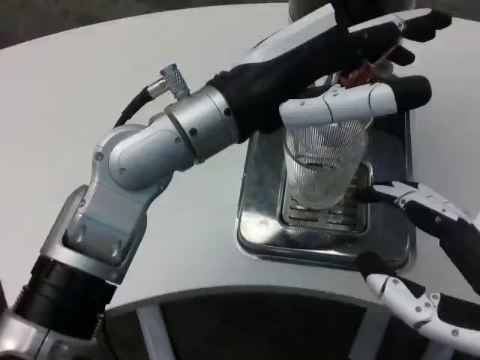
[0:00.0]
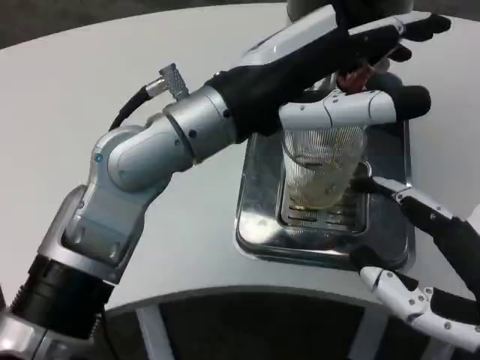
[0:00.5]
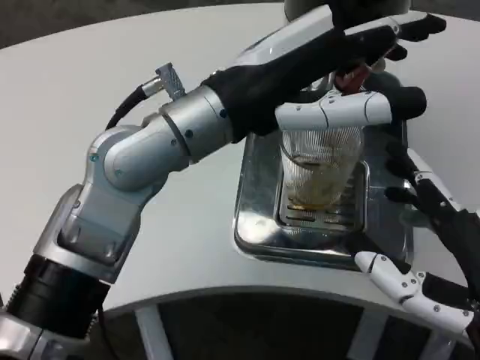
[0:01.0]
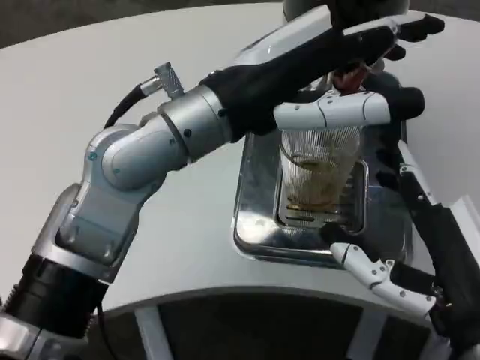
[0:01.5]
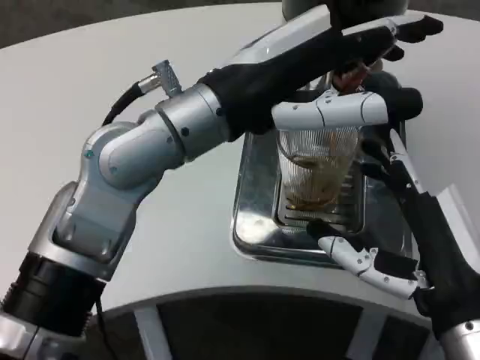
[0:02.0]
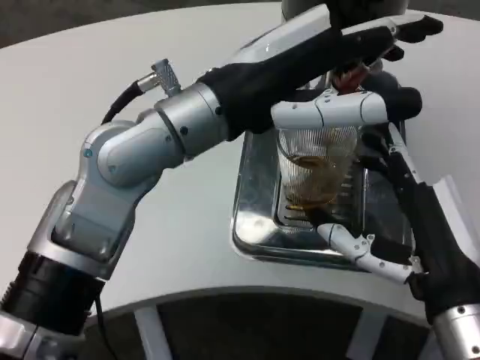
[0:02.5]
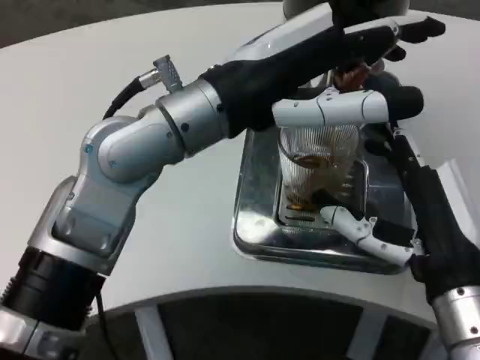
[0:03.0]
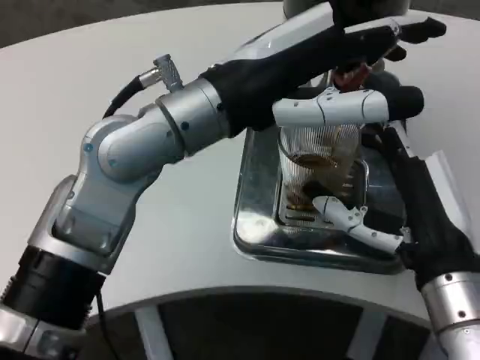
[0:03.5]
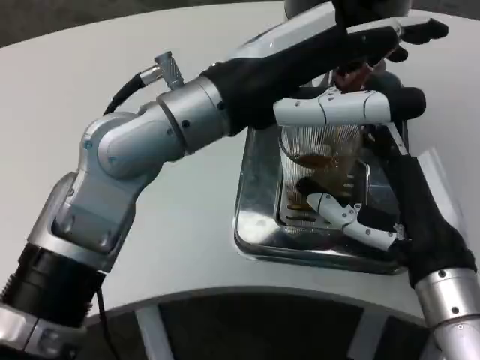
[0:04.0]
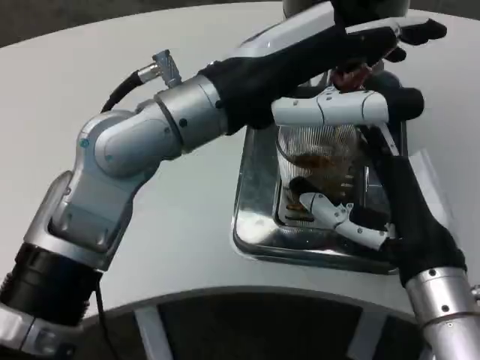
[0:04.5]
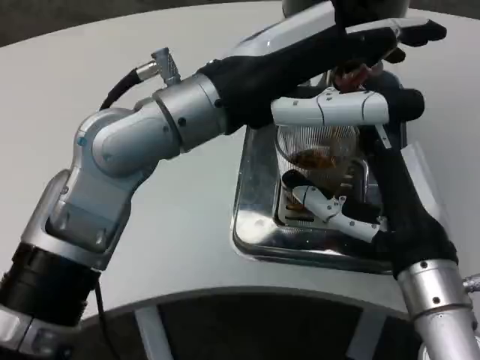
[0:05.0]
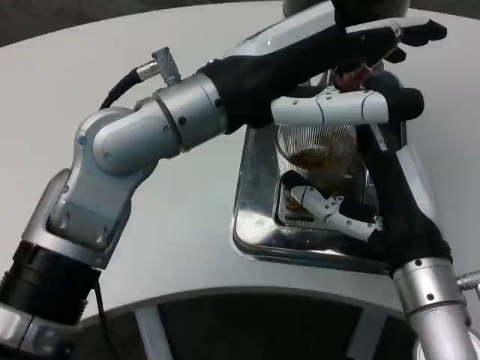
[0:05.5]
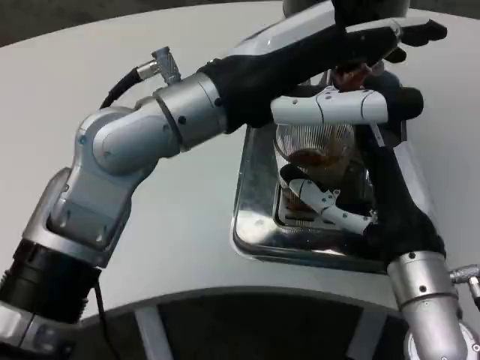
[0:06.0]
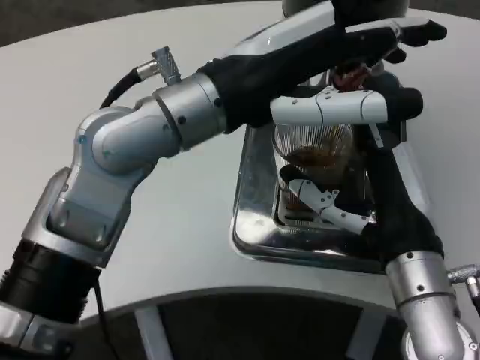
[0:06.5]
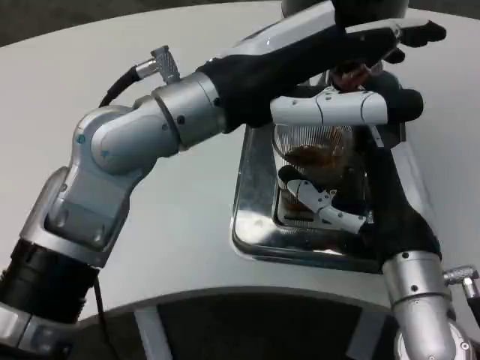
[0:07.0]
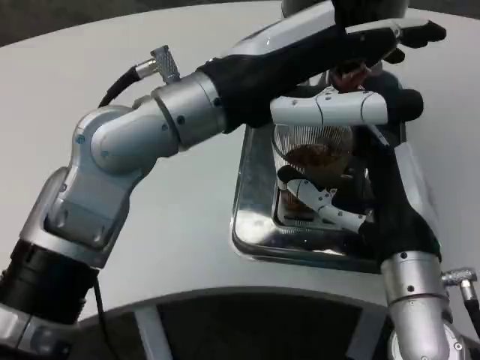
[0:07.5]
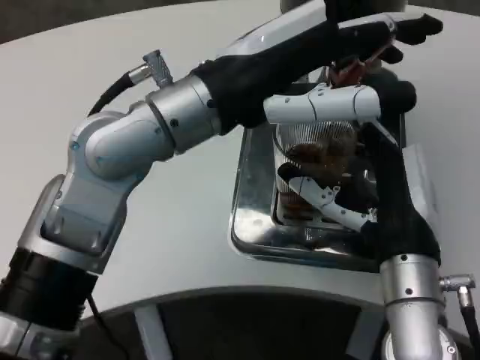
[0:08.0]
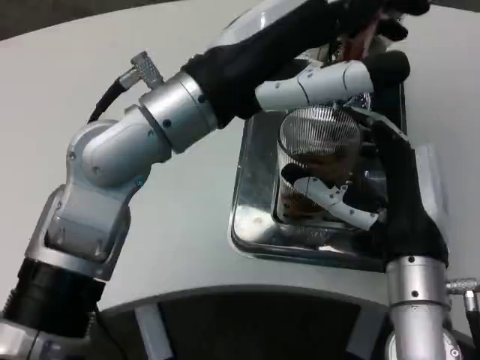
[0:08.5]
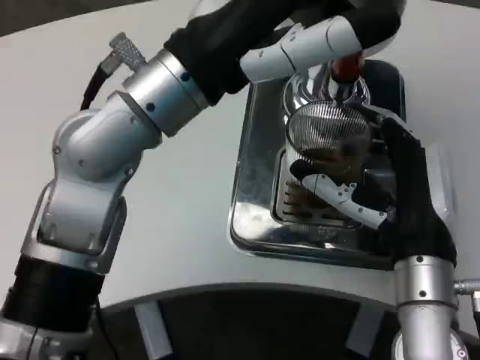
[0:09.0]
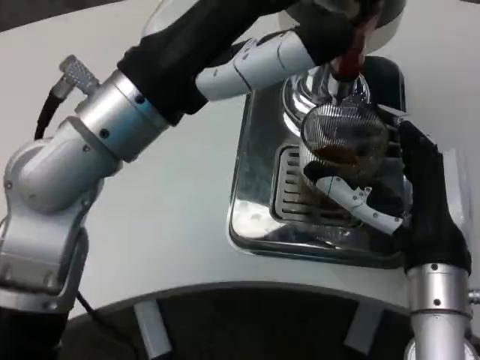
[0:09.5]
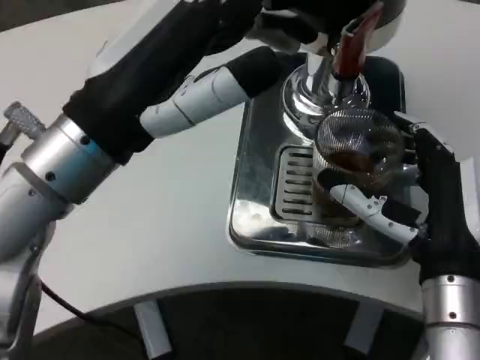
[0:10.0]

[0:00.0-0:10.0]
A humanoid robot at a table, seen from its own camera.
Task of the whole recording: Grasp the cup under the faucet to collect the drink, then remove the cup.
0:00.0 to 0:02.0: The right hand is displaced forward and downward by some 10 cm.
0:08.0 to 0:10.0: The left hand goes roughly 10 cm to the left and backward.

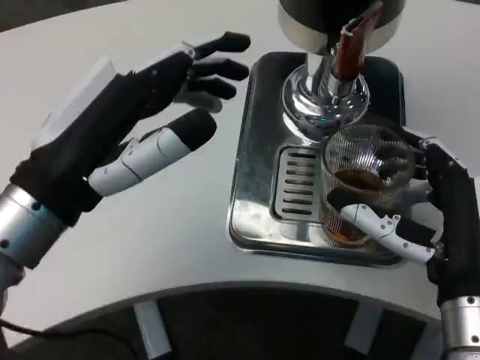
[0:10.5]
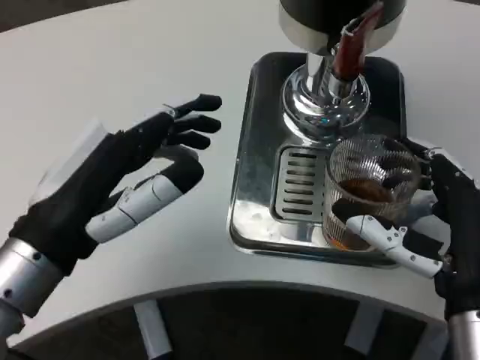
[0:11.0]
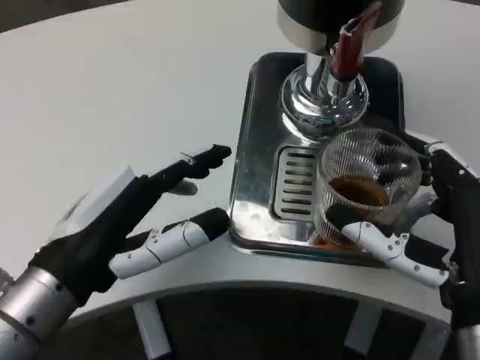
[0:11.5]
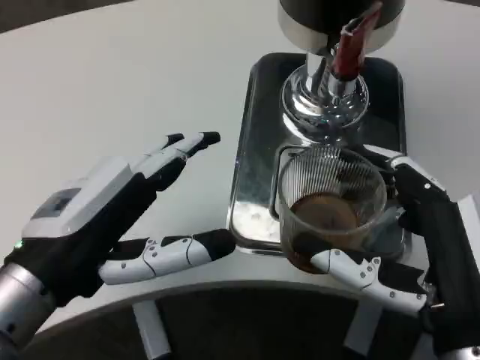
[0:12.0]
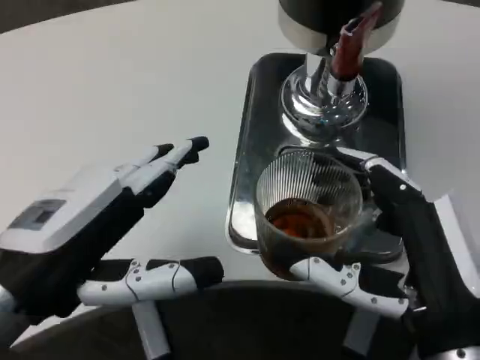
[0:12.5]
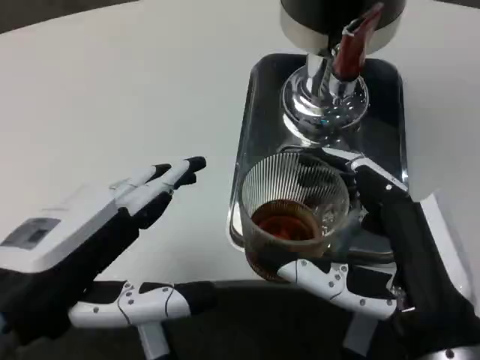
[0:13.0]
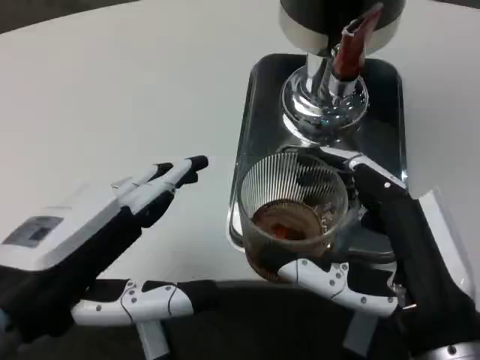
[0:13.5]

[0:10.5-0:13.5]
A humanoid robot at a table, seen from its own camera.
Task of the whole recording: Grasp the cup under the faucet to collect the drink, then remove the cup.
0:10.5 to 0:12.0: The right hand travels backward by about 5 cm.

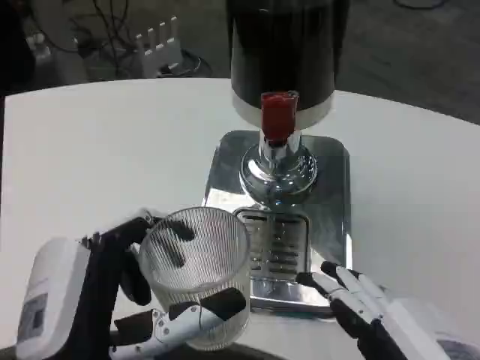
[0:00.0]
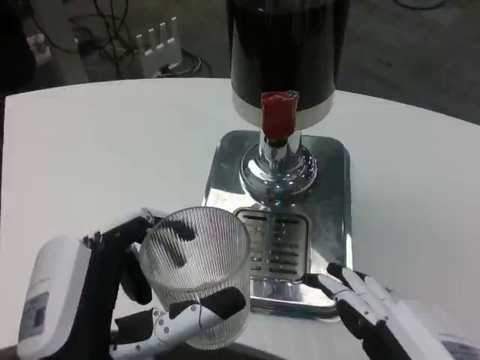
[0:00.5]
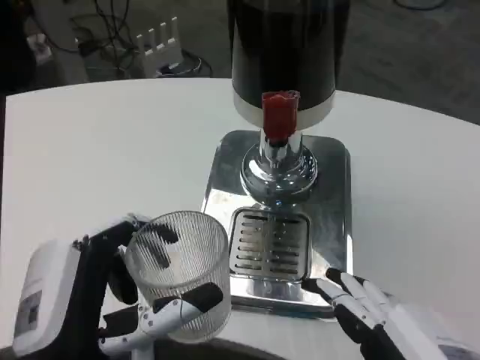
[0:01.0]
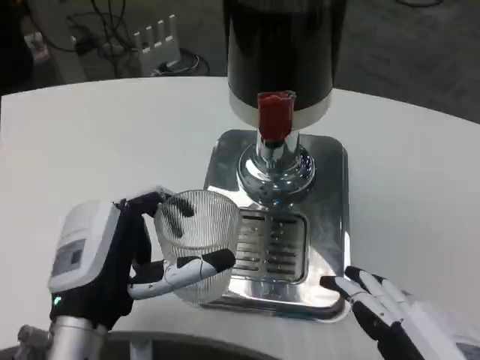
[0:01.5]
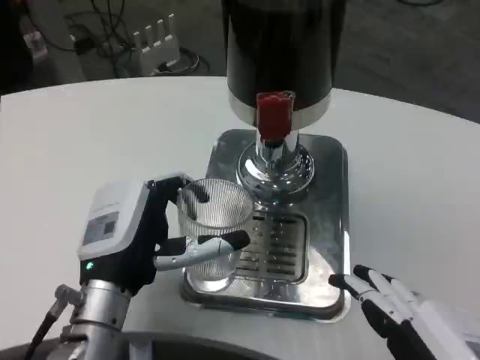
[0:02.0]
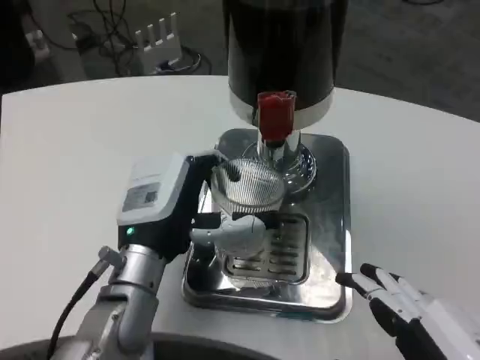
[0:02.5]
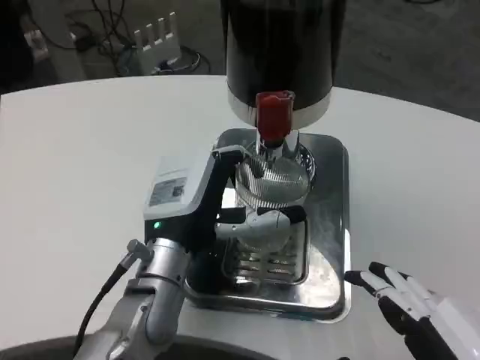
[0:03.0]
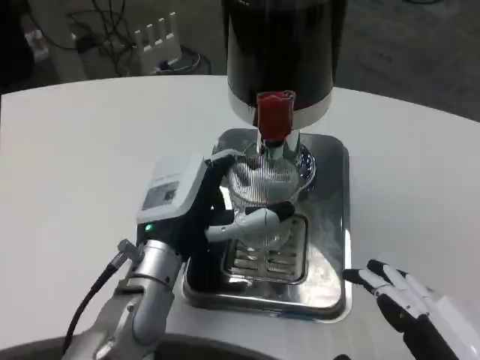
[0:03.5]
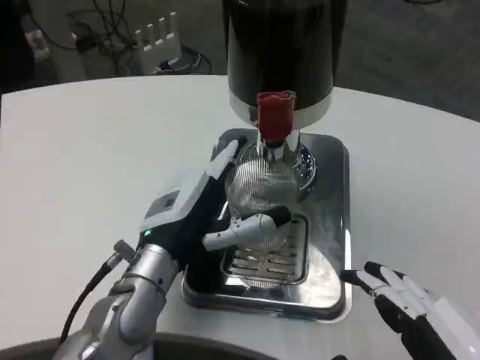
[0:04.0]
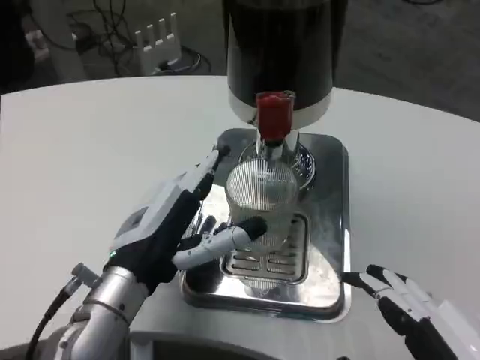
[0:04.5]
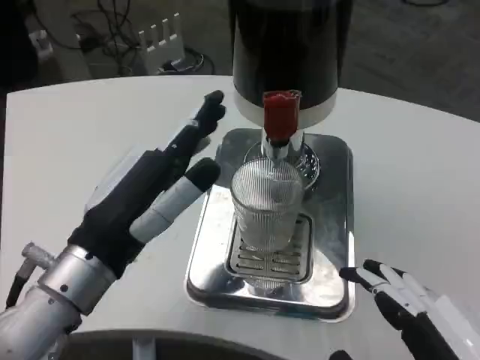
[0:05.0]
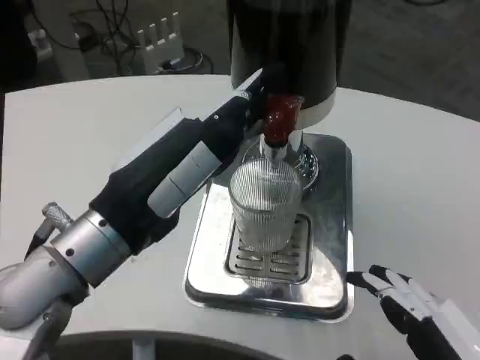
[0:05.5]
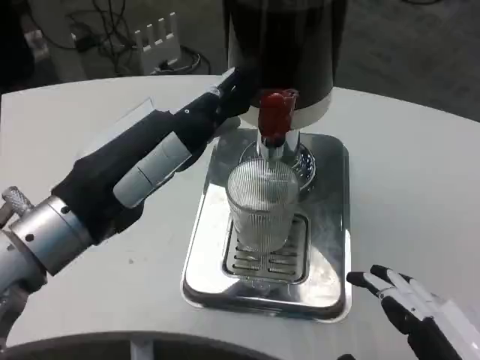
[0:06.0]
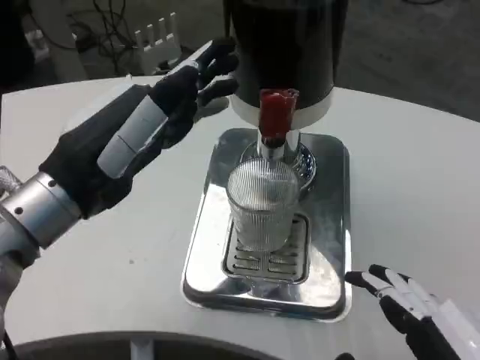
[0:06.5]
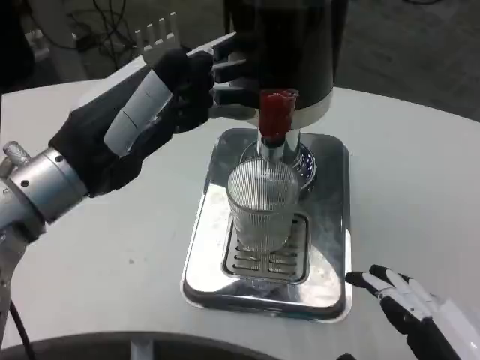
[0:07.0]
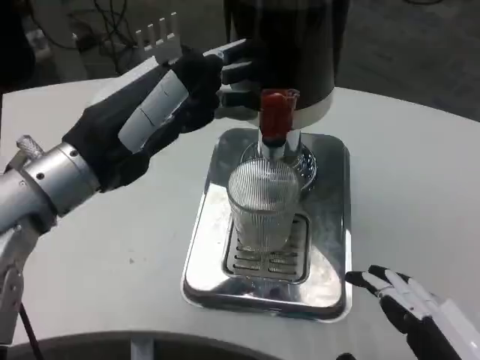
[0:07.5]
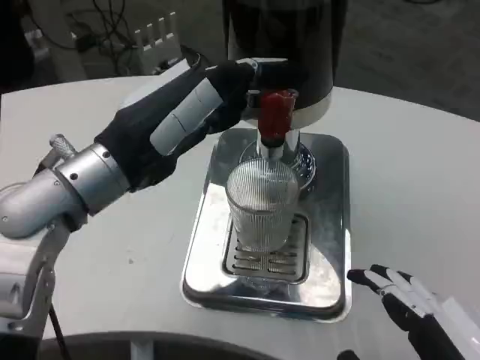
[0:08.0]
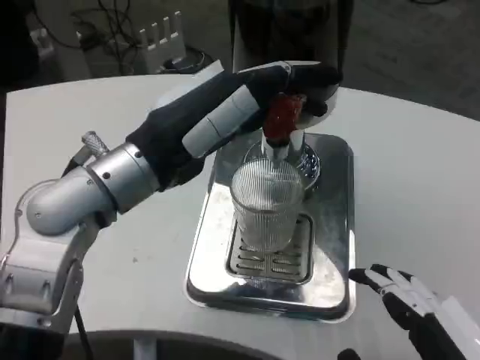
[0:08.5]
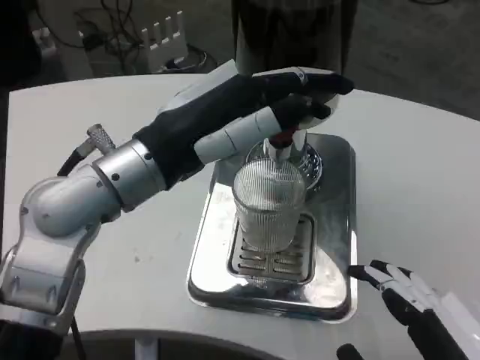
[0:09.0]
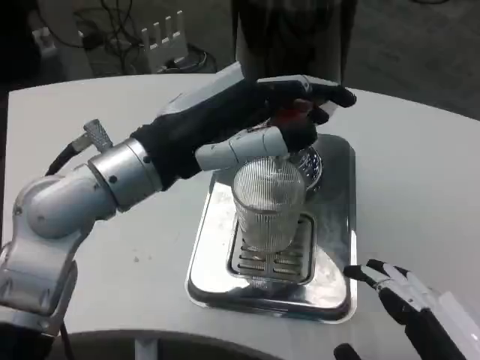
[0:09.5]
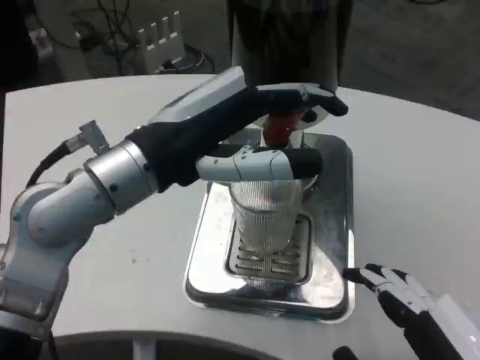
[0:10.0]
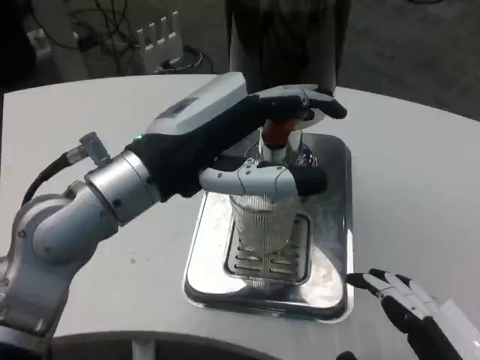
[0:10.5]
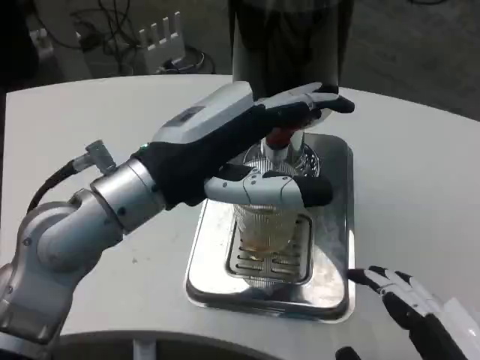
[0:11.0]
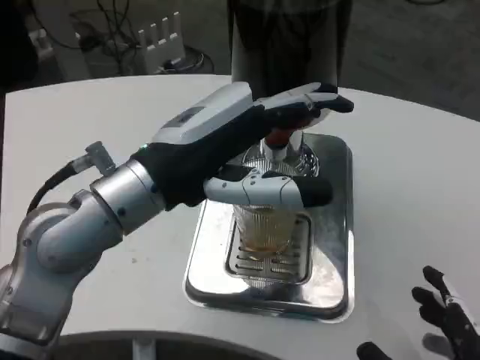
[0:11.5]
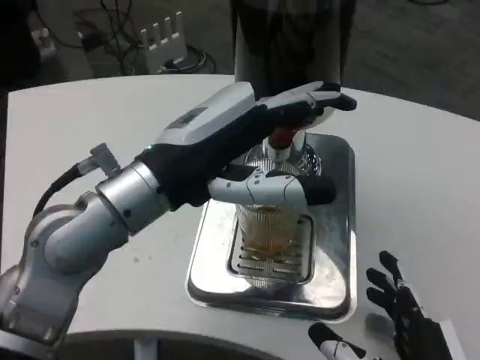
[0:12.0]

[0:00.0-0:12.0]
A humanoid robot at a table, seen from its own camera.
Task of the whole recording: Grasp the cup under the faucet to collect the drink, then remove the cup.
0:00.0 to 0:02.0: The left hand shifts about 15 cm forward.
0:02.0 to 0:04.0: The left hand moves some 5 cm.
0:04.0 to 0:06.0: The left hand heads upward, backward and to the left, covering roughly 15 cm.
0:06.0 to 0:08.0: The left hand heads forward, covering about 5 cm.
0:10.0 to 0:12.0: The right hand shifts approximately 10 cm downward and forward.

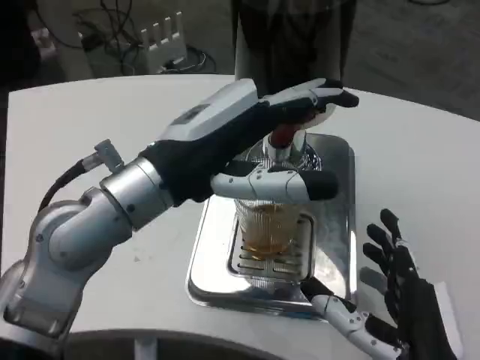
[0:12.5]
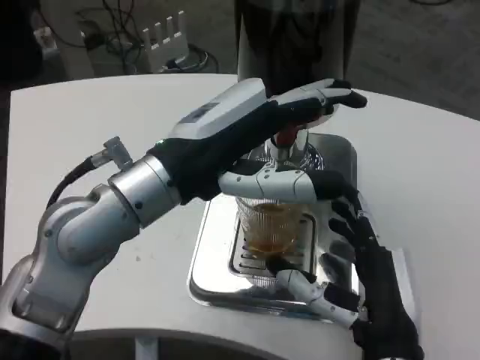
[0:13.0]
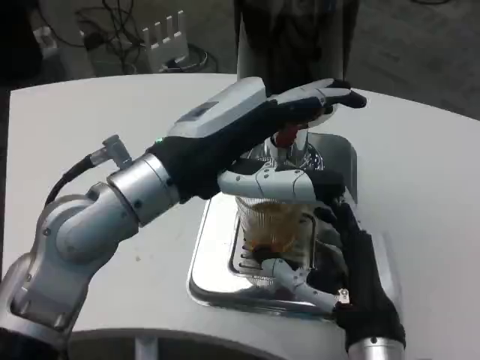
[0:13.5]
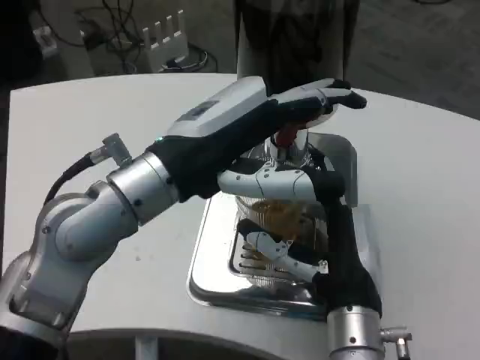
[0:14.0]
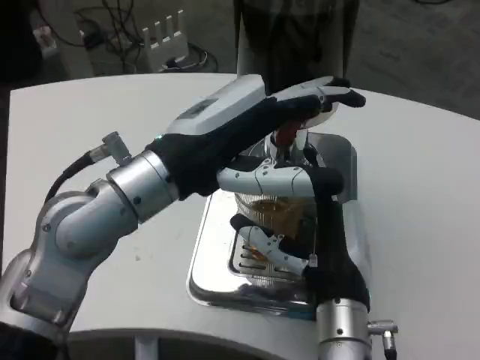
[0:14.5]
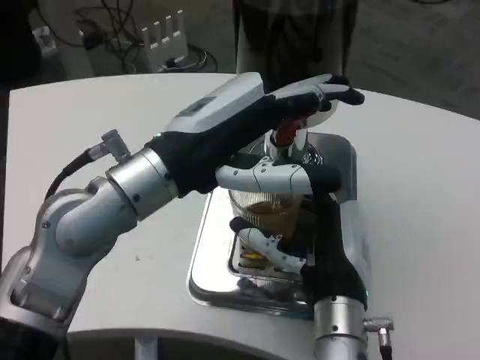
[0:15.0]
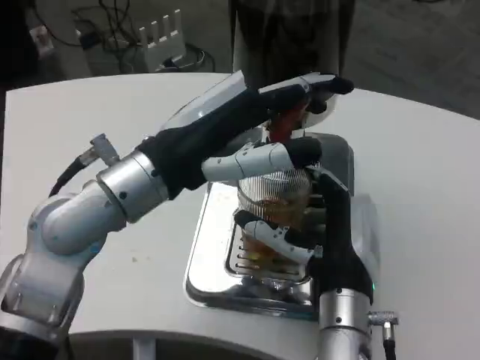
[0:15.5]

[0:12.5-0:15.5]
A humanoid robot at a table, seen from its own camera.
Task of the whole recording: Grasp the cup under the faucet to collect the drink, then remove the cup.
0:12.5 to 0:14.0: The right hand shifts roughly 10 cm forward.
